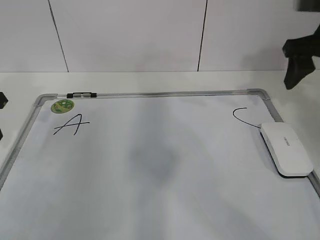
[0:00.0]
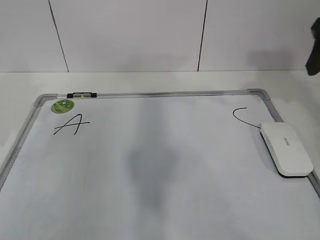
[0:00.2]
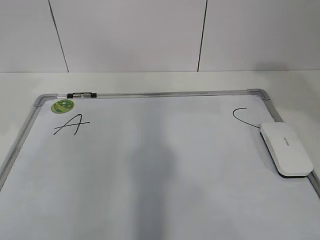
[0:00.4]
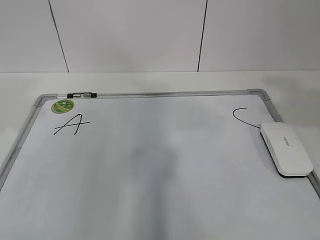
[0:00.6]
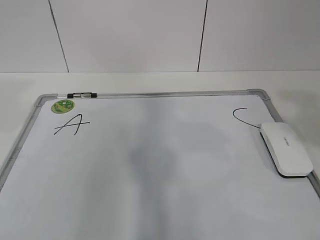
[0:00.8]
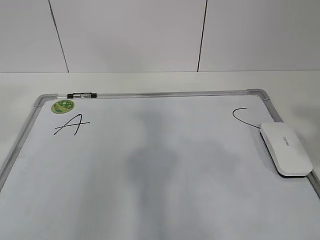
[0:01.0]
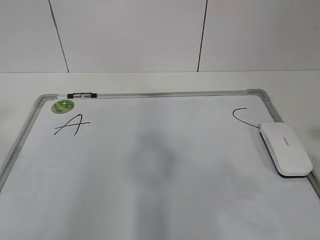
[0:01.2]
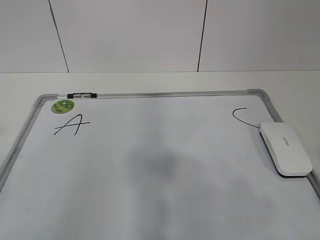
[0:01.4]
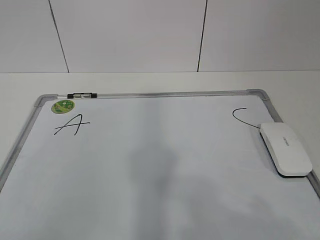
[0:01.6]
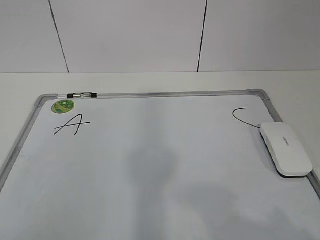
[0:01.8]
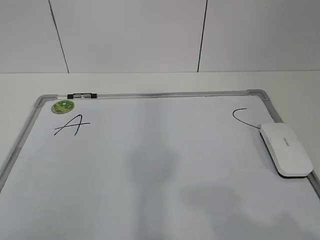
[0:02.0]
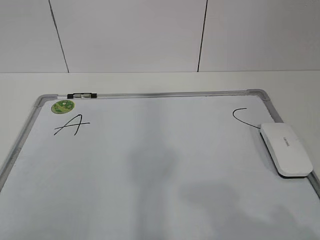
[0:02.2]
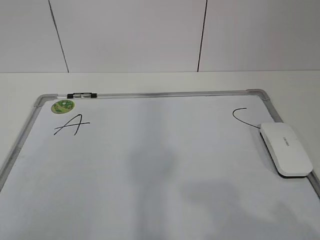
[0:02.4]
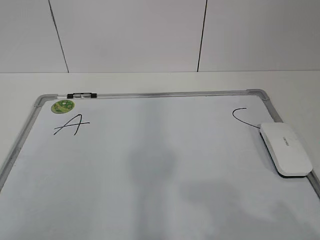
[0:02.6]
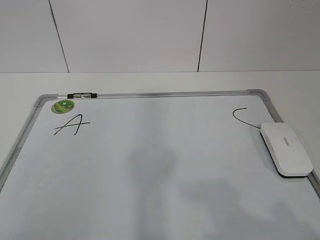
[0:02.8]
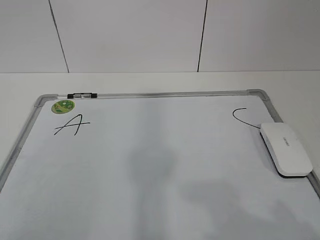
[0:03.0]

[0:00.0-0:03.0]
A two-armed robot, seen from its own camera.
Task of the whole recording: pick up the eraser on the blackboard and erase the letter "B".
0:00.0 to 0:01.6: The grippers both shift backward by roughly 35 cm.

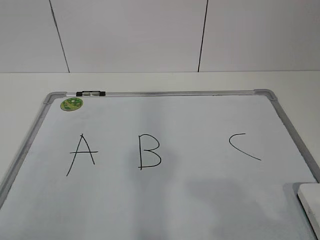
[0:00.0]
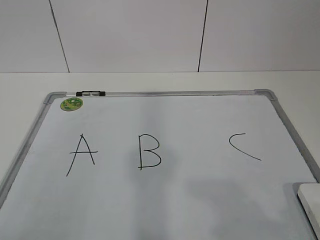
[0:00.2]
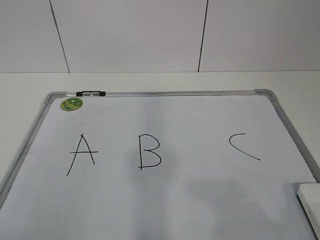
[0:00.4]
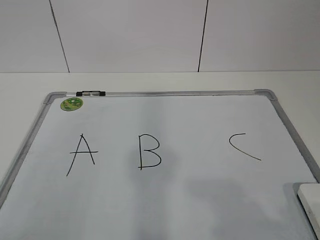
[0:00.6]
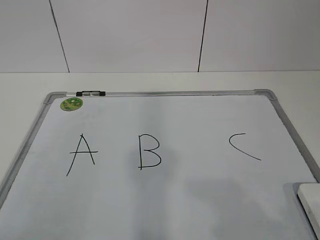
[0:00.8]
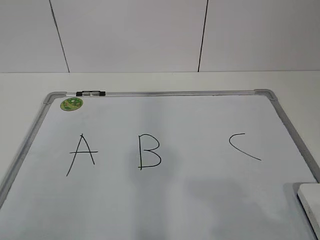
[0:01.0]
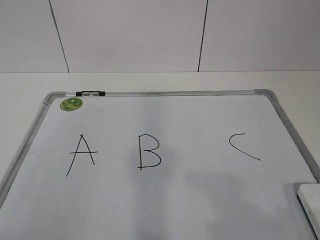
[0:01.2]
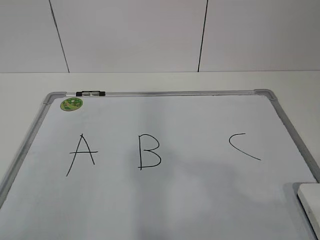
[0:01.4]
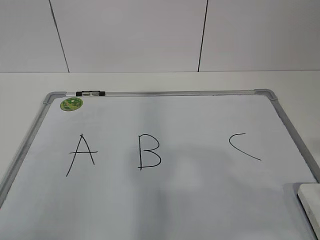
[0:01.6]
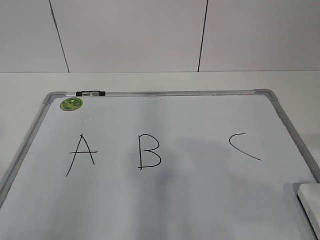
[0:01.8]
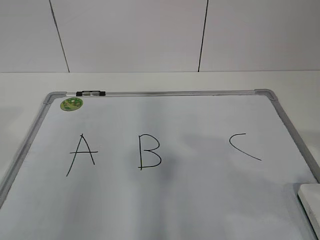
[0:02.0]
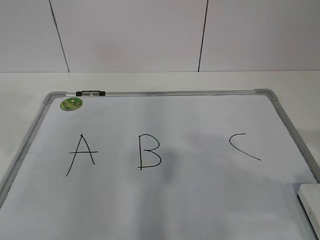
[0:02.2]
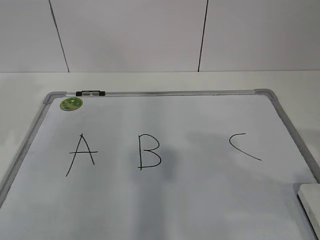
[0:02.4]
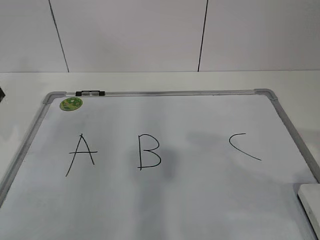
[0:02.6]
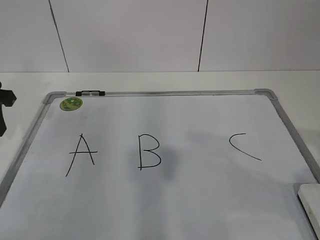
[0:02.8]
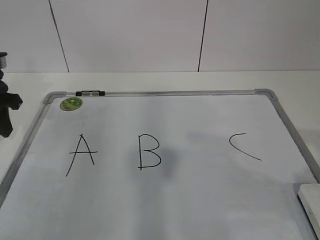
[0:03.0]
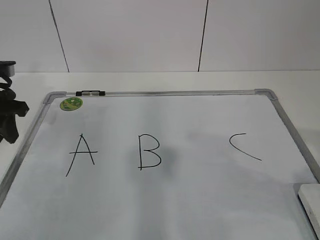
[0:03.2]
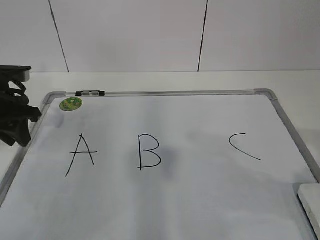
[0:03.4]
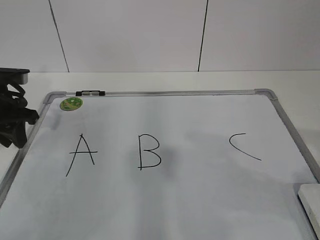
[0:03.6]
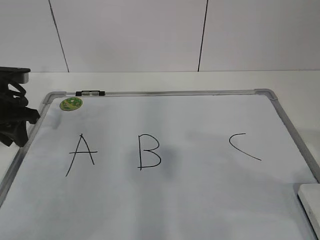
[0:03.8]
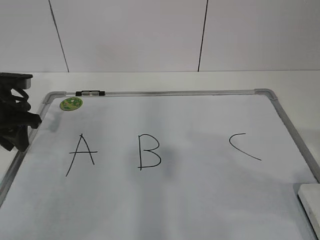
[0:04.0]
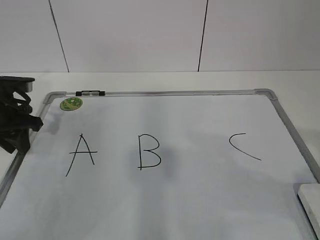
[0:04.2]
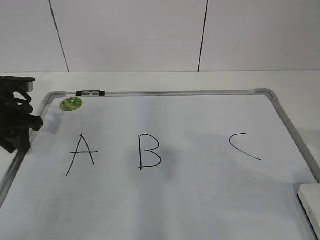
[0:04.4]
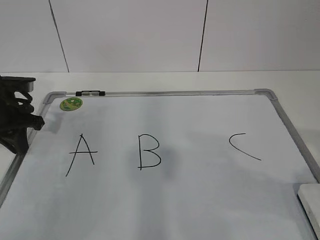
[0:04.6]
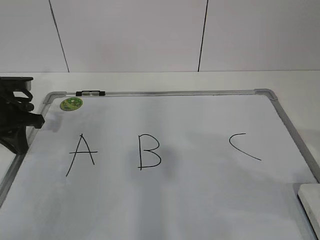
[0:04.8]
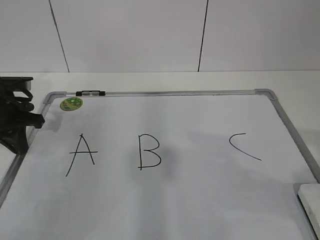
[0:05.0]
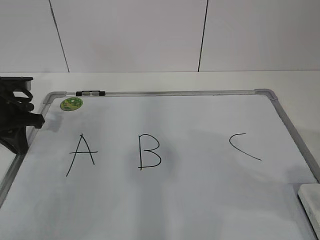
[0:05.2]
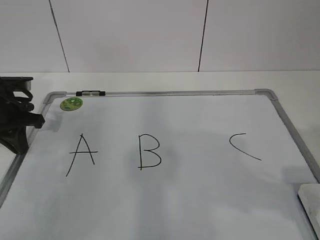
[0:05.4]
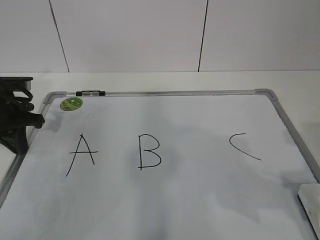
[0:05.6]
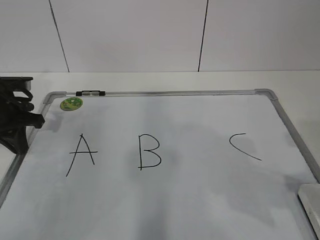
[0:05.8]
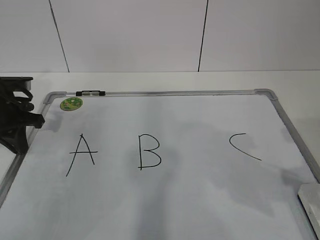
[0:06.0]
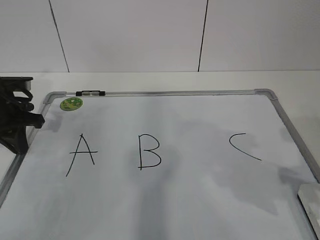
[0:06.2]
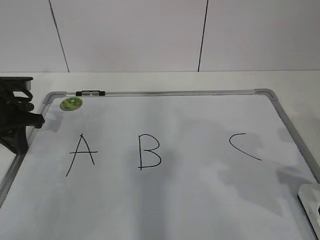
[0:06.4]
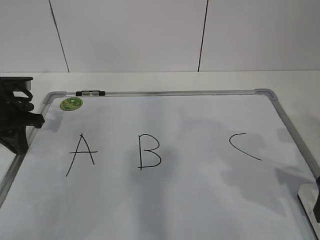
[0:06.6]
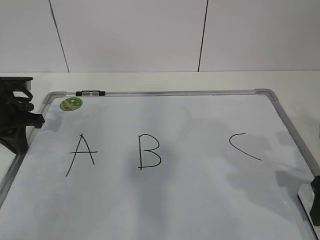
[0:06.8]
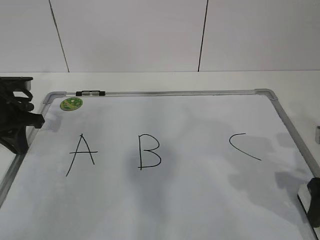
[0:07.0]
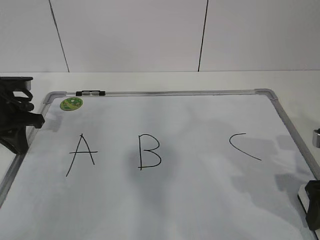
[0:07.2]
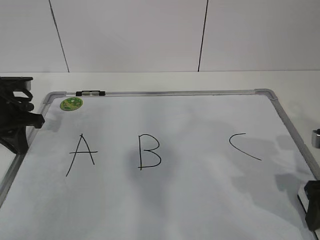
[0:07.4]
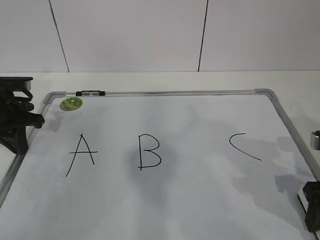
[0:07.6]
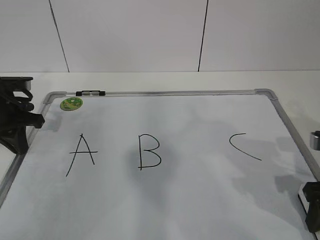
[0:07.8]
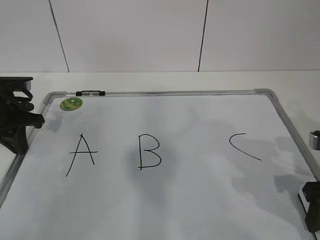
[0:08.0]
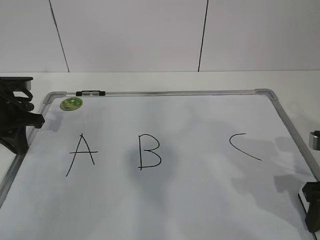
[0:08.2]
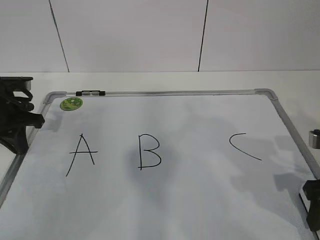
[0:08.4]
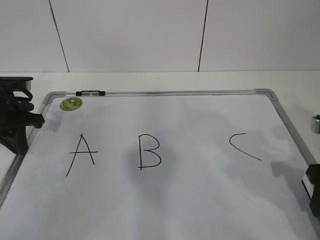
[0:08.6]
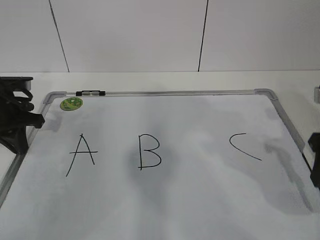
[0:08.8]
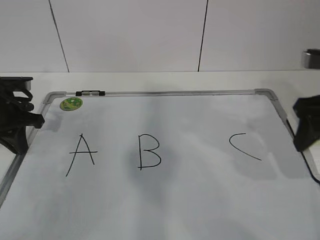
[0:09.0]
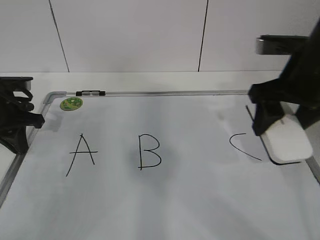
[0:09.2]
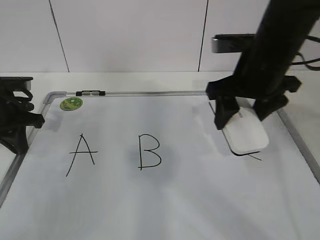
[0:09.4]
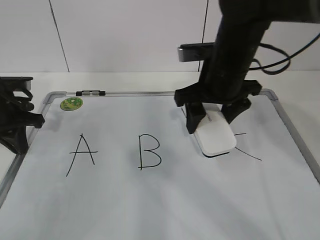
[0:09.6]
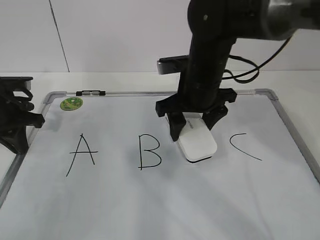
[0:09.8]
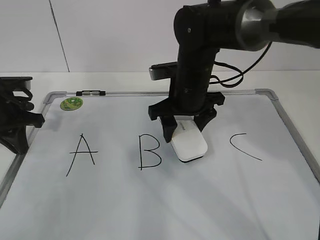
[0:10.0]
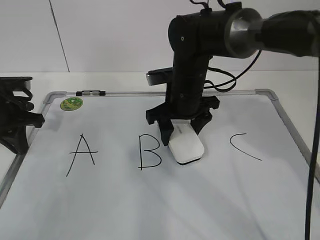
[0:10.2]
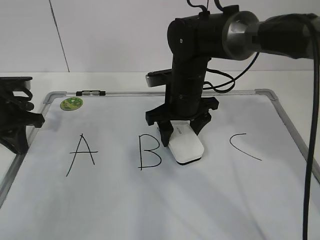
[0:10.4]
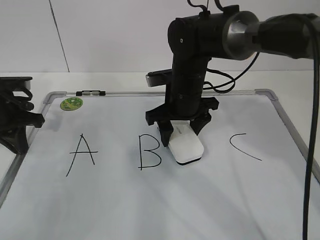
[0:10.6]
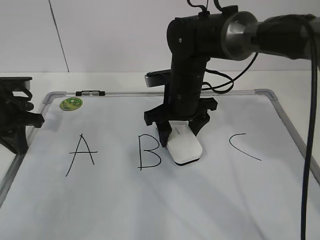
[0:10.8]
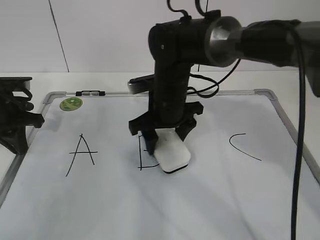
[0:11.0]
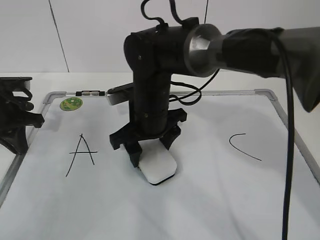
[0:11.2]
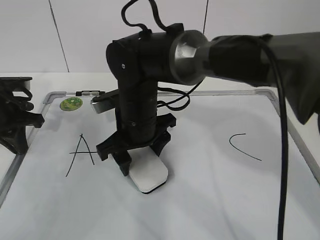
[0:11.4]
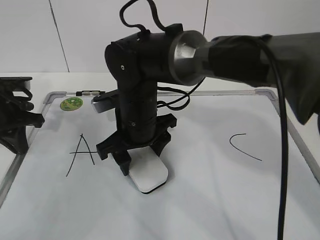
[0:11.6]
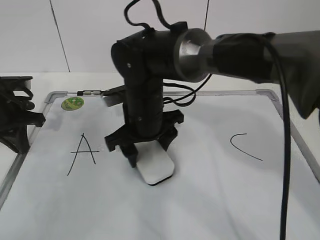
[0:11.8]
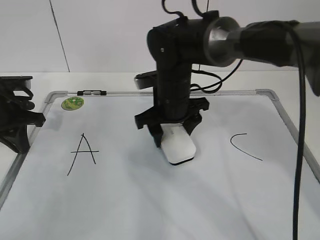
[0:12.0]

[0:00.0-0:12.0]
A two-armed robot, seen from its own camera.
Task of the whole recording: pick up the eraser on the blackboard and erase the letter "B".
Step, 0:00.0 to 0:03.8: Hold the drawing board steady with your left hand.
Step, 0:07.0 to 0:12.0: Erase the letter B with your right hand.
0:01.6 to 0:03.0: The left gripper travels forward by about 30 cm.
0:03.0 to 0:04.4: The left gripper is displaced downward by approximately 5 cm.
0:04.4 to 0:06.0: The left gripper closes.
0:06.0 to 0:07.6: The right gripper is displaced downward and forward by some 10 cm.
0:07.6 to 0:09.0: The right gripper moves upward and forward, some 10 cm, and closes up.
0:09.0 to 0:10.4: The right gripper heads to the left, forward and downward, covering roughly 25 cm.
0:10.4 to 0:12.0: The right gripper travels to the left and back again, approximately 10 cm each way.

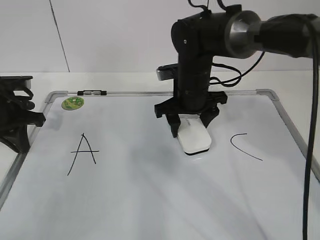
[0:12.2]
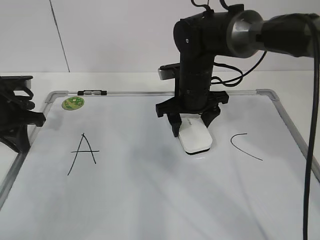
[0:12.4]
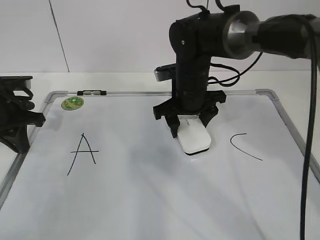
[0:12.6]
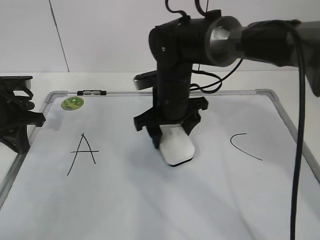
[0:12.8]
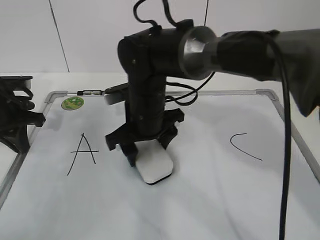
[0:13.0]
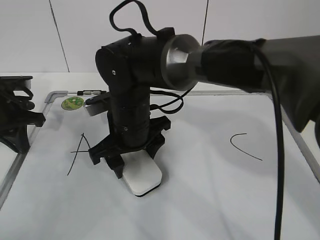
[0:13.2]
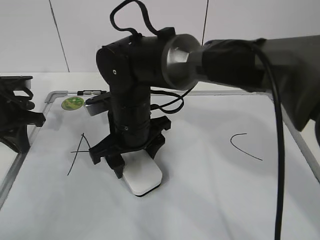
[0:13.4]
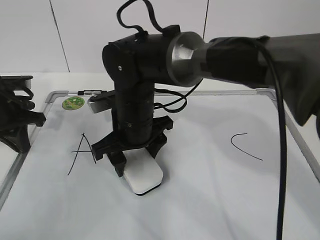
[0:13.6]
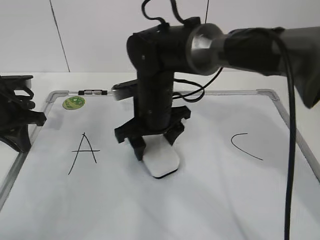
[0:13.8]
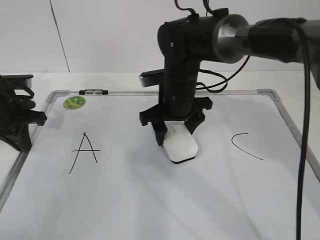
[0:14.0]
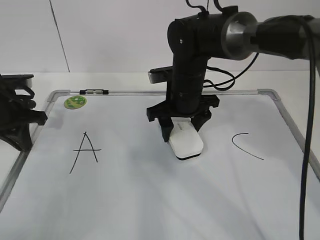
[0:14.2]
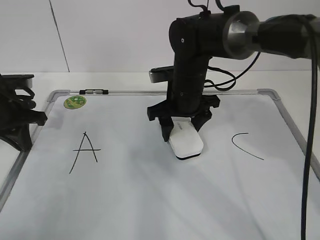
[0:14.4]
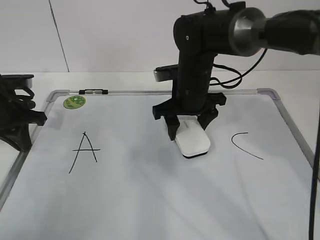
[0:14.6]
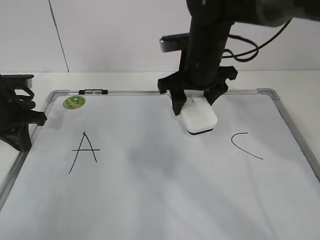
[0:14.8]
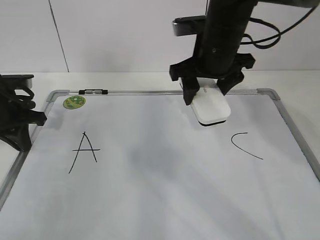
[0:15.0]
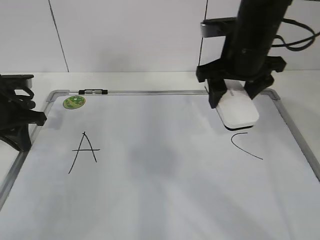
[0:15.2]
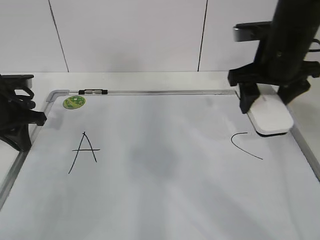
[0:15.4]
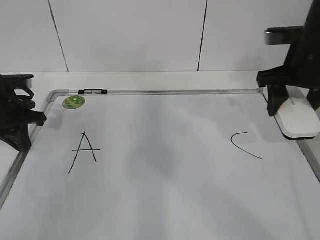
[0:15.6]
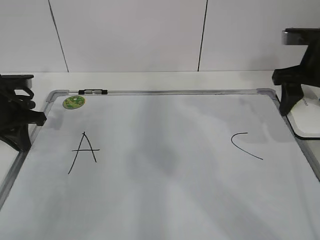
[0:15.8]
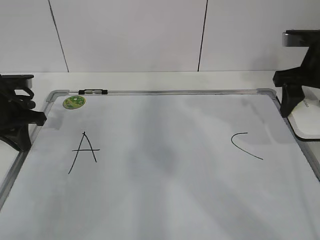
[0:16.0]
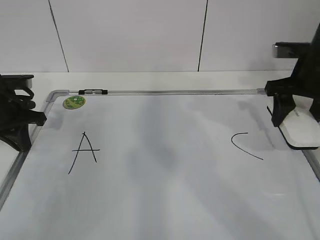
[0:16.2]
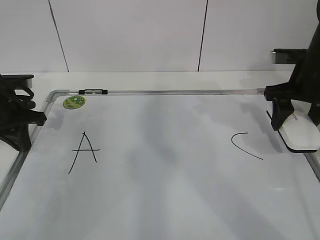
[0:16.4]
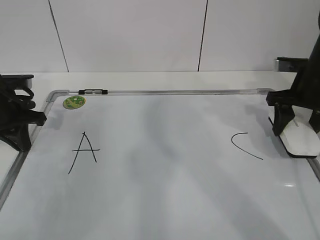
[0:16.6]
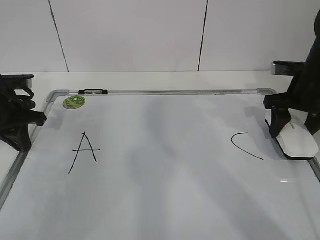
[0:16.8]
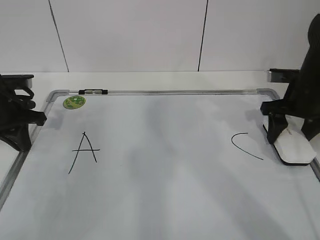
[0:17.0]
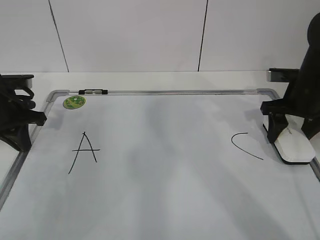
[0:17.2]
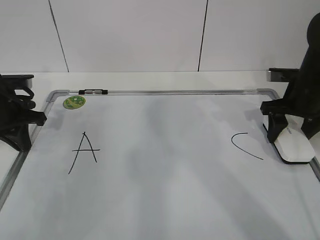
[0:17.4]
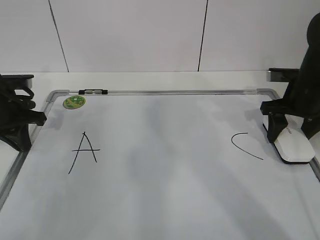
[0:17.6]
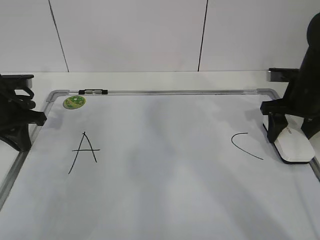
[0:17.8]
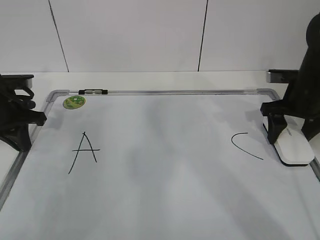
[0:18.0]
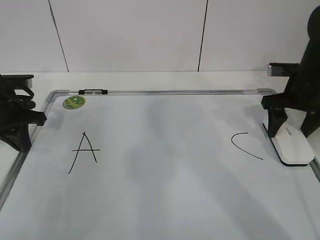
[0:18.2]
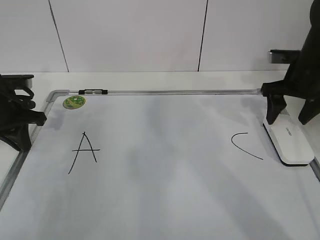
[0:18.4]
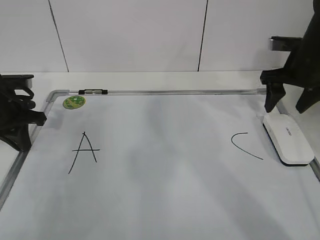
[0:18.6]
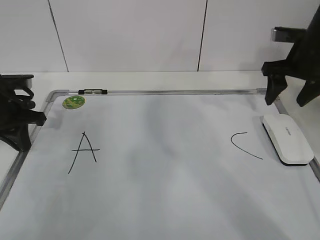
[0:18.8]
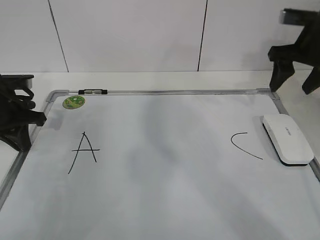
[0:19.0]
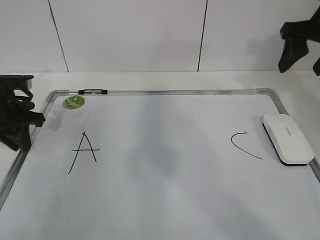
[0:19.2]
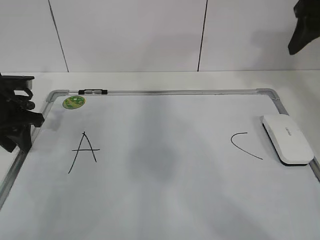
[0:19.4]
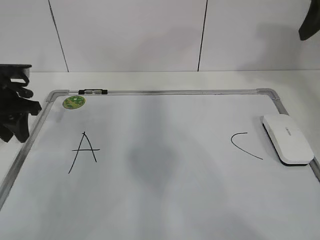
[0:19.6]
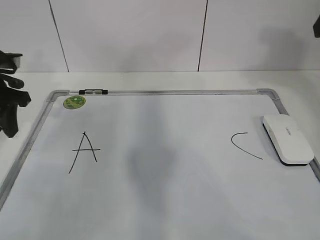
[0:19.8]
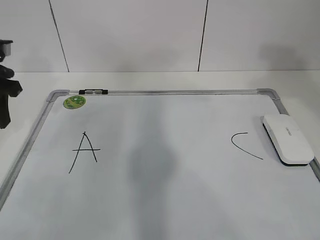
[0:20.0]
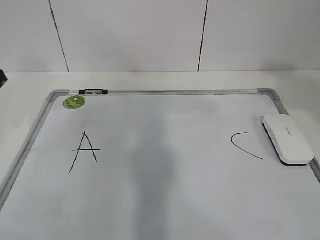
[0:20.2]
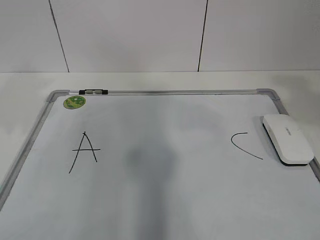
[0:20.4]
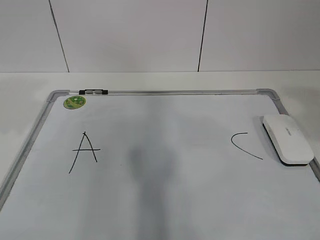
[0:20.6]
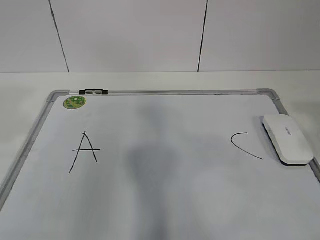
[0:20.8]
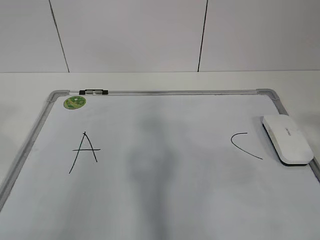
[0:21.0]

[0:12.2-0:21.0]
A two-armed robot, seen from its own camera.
Task of the whole recording: pick up the eraser on the blackboard and erase the letter "B".
Step, 0:12.2 to 0:14.8: Put down the eraser with your right hand.
0:12.2 to 0:13.6: The right gripper is displaced to the left and backward by approximately 15 cm.
0:13.6 to 0:15.2: The right gripper shifts approximately 20 cm to the right and upward.
0:15.2 to 0:16.6: The right gripper is displaced to the right by roughly 15 cm.
0:16.6 to 0:18.0: The grippers make only small movements.
0:18.0 to 0:19.6: The left gripper opens. The right gripper shifts roughly 20 cm upward.
0:19.6 to 0:21.0: The right gripper is displaced backward by approximately 30 cm. Meanwhile the left gripper heads backward and upward, covering approximately 35 cm.
